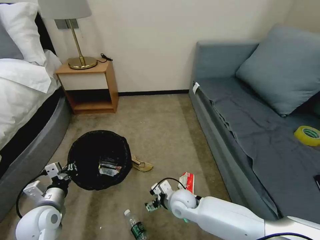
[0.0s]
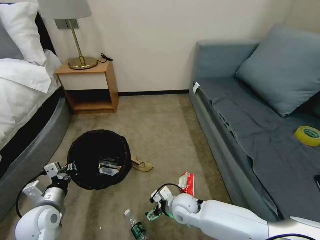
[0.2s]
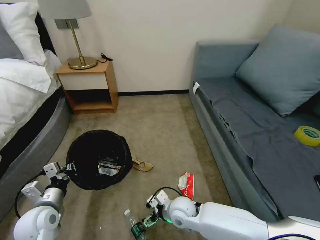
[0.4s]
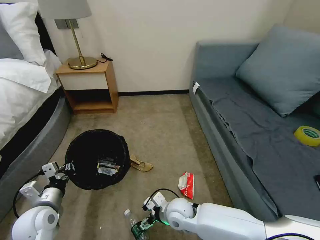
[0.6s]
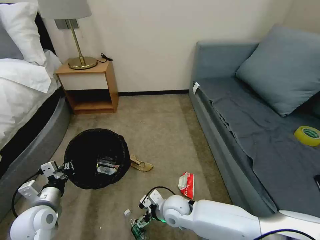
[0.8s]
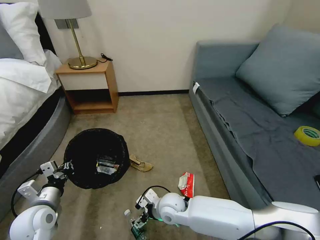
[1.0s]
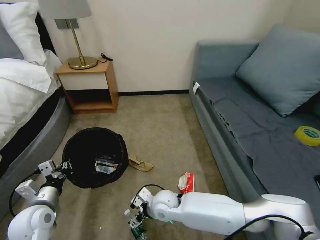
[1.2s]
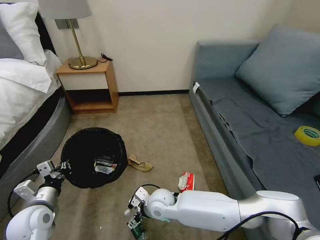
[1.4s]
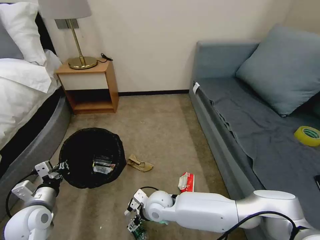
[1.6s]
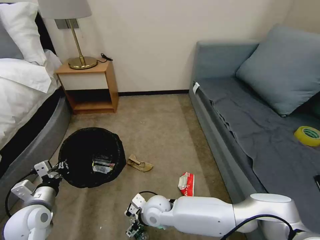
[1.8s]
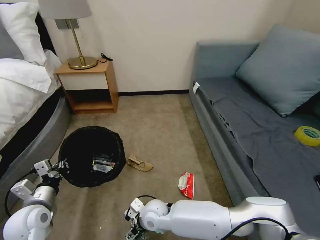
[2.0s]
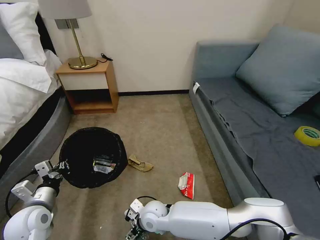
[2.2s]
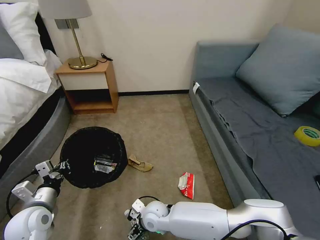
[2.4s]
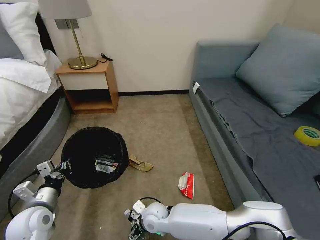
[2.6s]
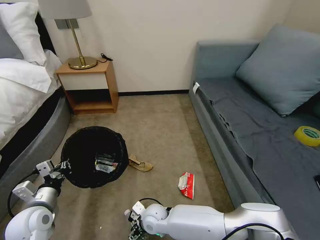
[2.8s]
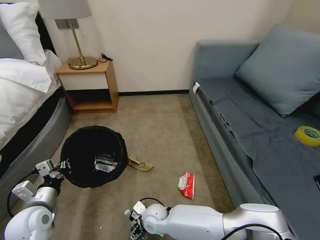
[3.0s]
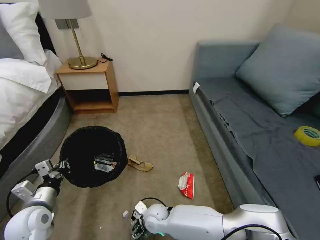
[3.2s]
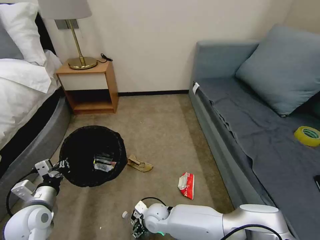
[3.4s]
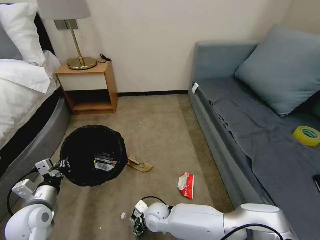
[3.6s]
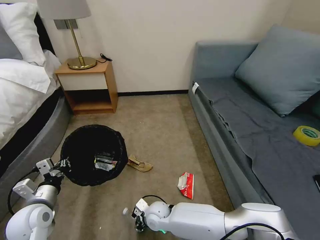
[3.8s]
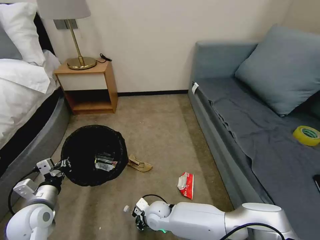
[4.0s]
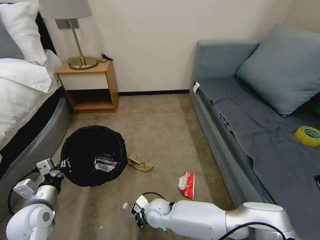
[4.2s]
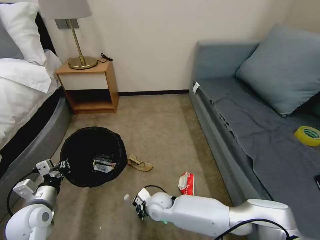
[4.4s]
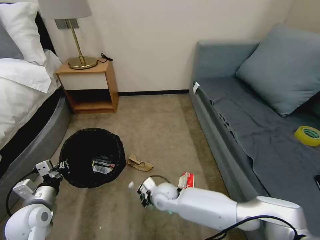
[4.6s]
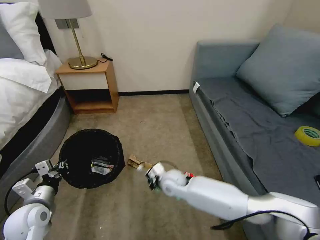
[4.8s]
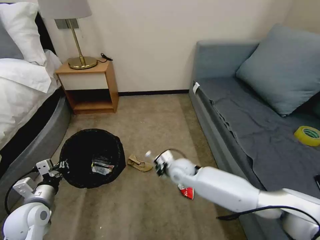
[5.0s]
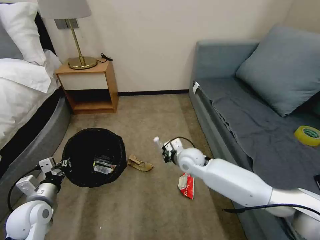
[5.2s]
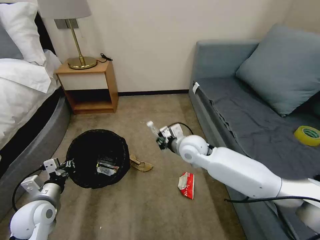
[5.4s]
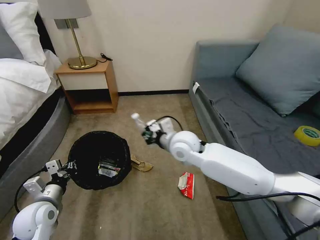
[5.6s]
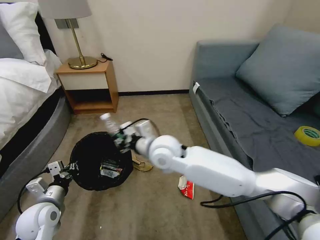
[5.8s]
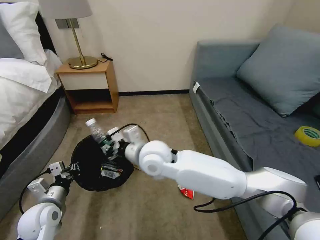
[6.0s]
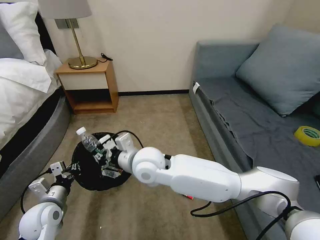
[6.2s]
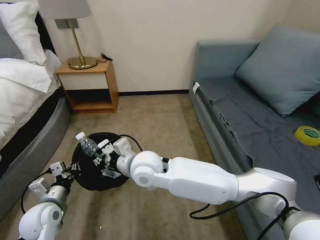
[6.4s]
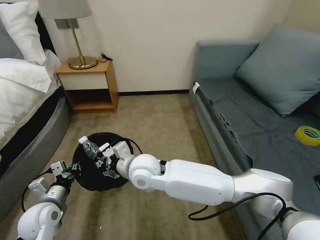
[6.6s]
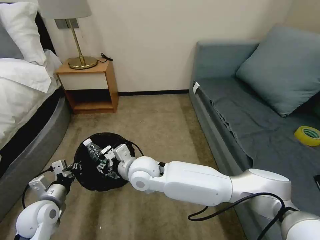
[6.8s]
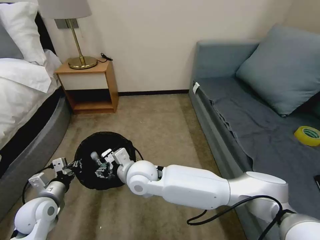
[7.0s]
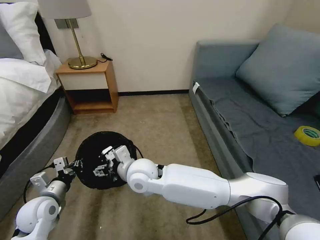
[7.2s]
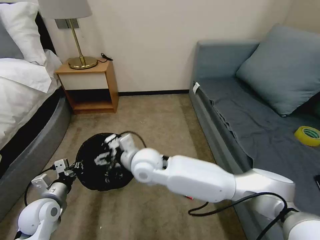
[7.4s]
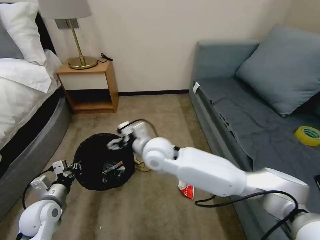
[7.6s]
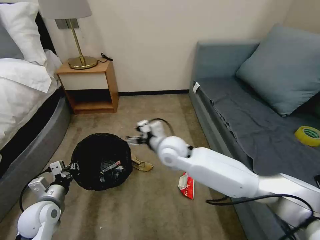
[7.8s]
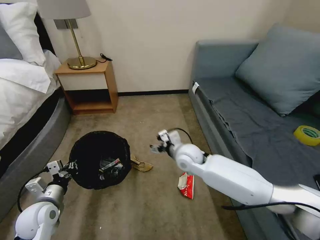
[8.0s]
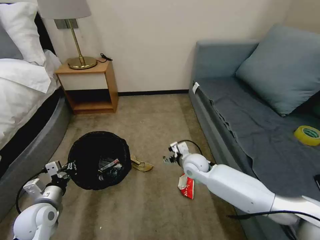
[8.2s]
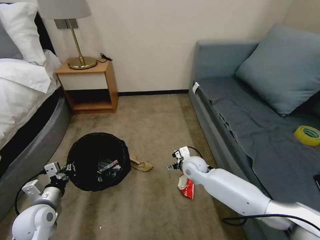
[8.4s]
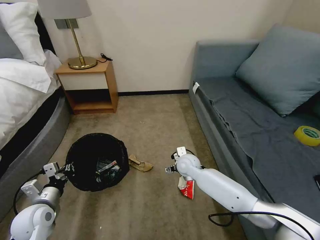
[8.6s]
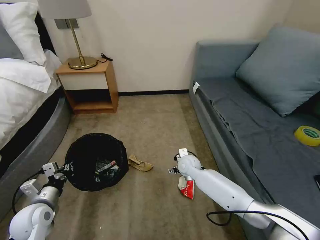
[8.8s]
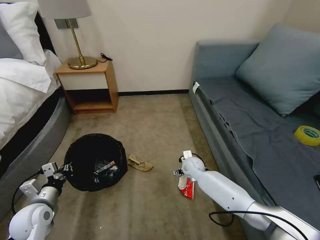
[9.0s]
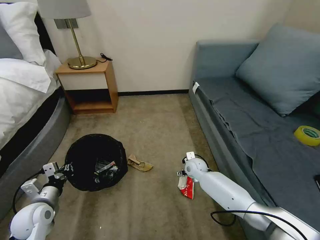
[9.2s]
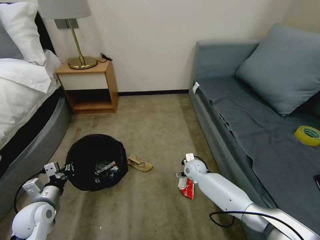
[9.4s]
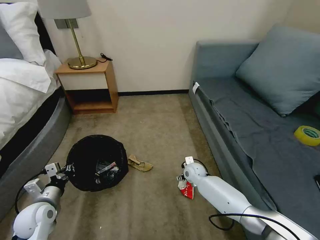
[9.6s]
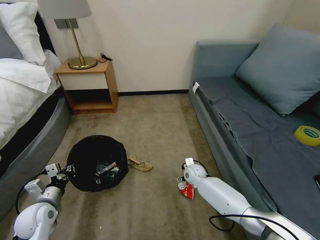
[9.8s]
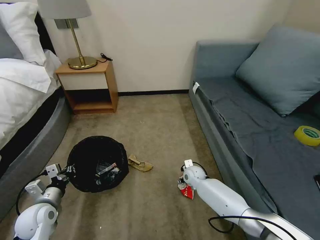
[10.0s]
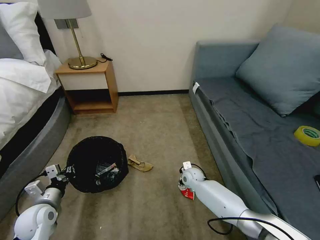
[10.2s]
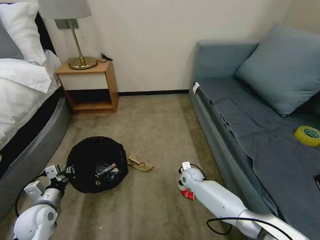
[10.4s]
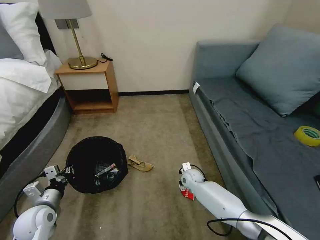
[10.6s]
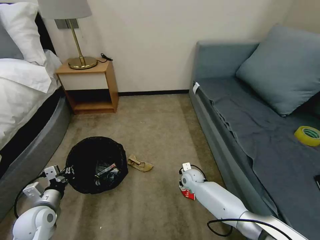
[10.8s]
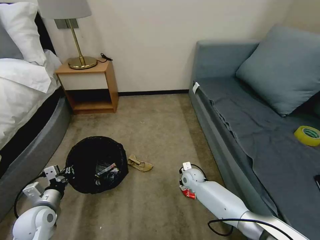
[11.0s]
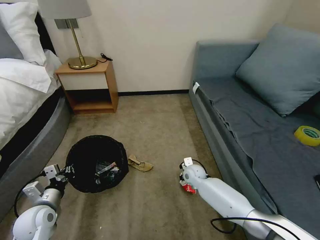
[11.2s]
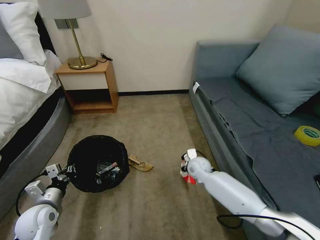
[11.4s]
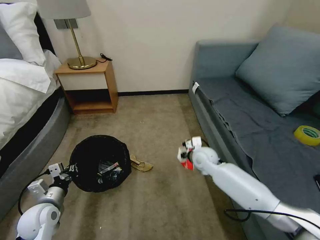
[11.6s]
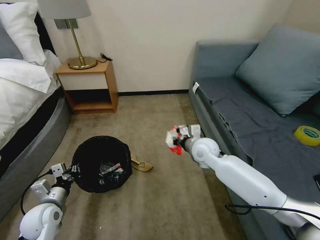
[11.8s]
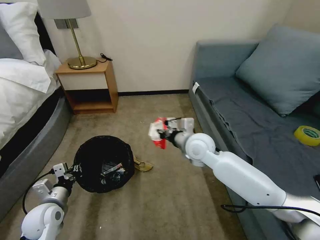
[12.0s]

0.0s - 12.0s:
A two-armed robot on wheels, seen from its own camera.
Task of the whole recording: Pick up the trash bin, then pick up the garbage on the floor and place it into the trash bin.
0.0s - 1.6s: The right gripper moves to the left, roughly 10 cm.
1.6s - 3.0s: The right gripper is displaced downward by approximately 10 cm.
3.0s - 4.4s: The right gripper closes.
4.4s - 6.0s: The right gripper shifts approximately 25 cm upward.
6.0s - 7.6s: The right gripper opens its fingers.
7.6s - 9.0s: The right gripper is displaced downward, to the right and forward by approximately 30 cm.
9.0s - 10.4s: The right gripper moves downward, approximately 5 cm, and closes up.
10.4s - 12.0s: The right gripper travels upward by roughly 25 cm, and closes.

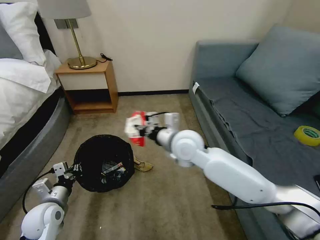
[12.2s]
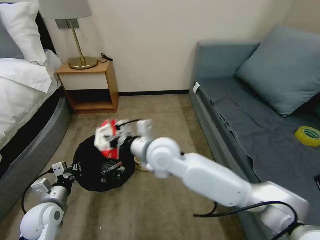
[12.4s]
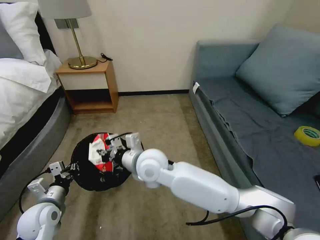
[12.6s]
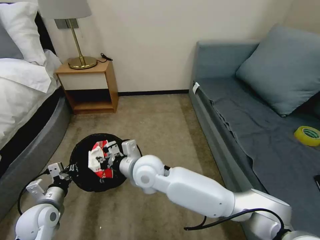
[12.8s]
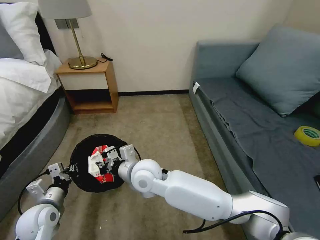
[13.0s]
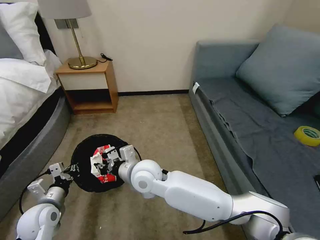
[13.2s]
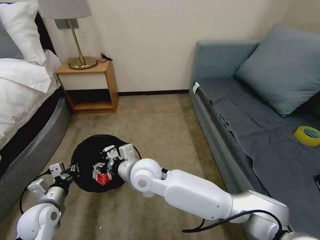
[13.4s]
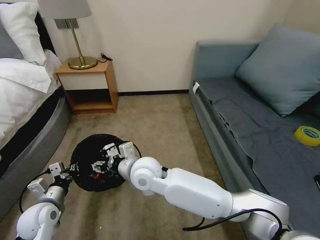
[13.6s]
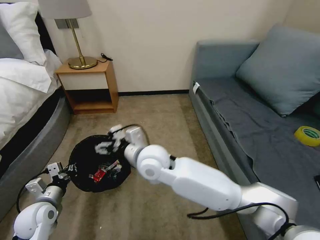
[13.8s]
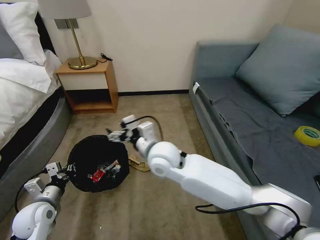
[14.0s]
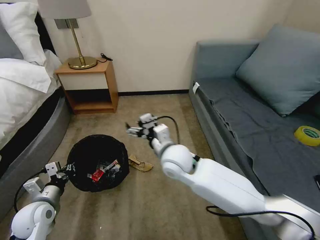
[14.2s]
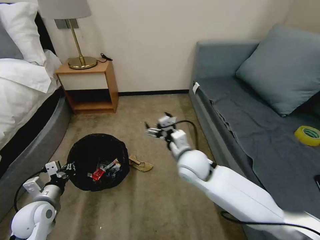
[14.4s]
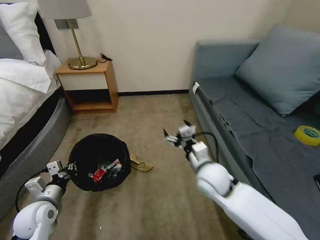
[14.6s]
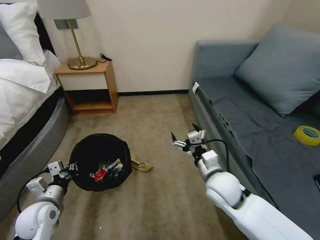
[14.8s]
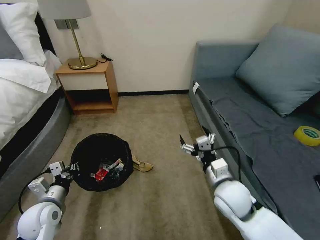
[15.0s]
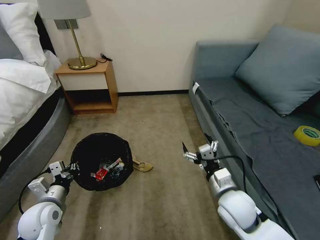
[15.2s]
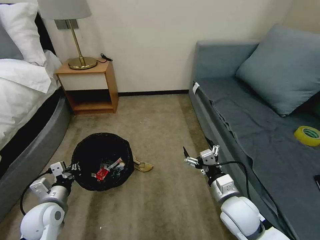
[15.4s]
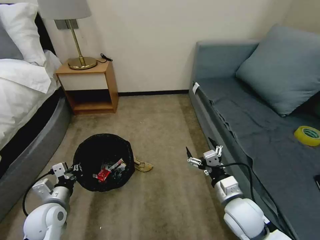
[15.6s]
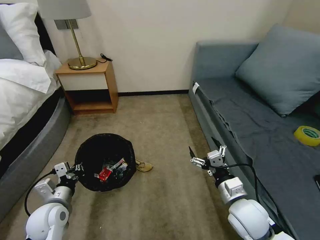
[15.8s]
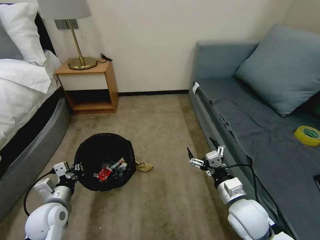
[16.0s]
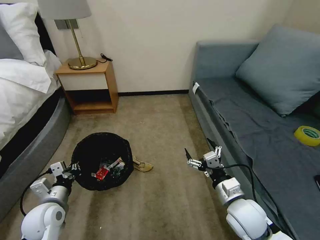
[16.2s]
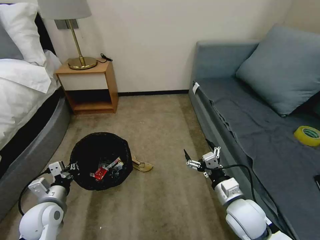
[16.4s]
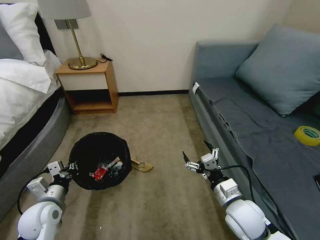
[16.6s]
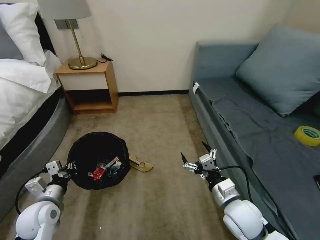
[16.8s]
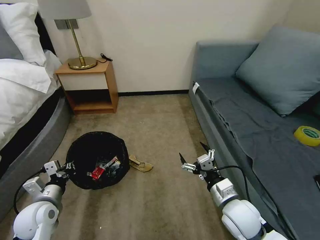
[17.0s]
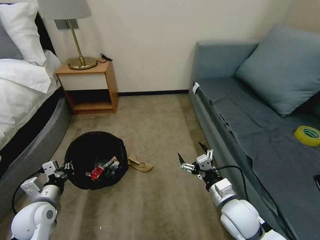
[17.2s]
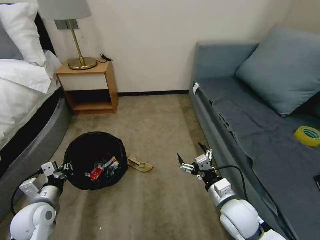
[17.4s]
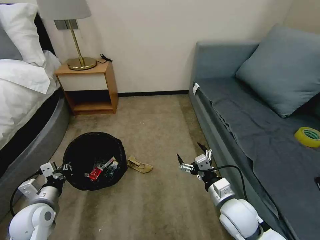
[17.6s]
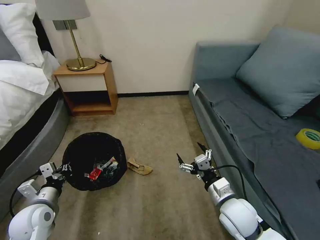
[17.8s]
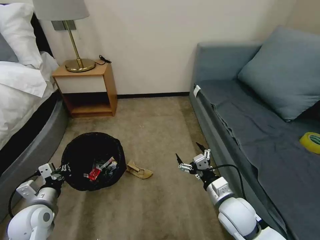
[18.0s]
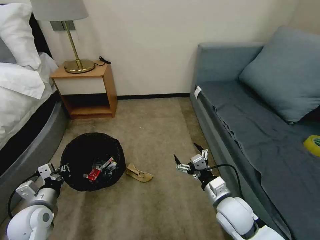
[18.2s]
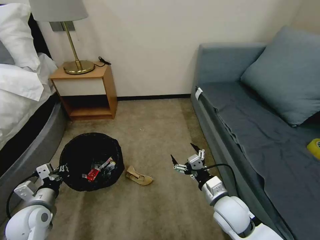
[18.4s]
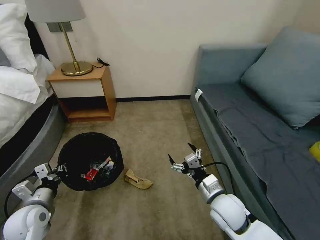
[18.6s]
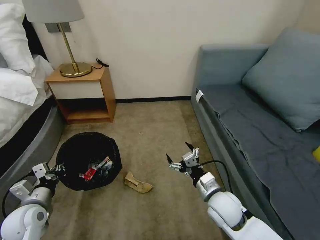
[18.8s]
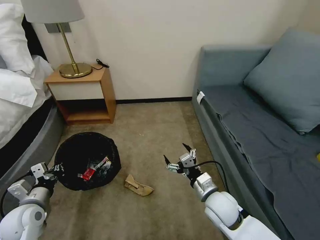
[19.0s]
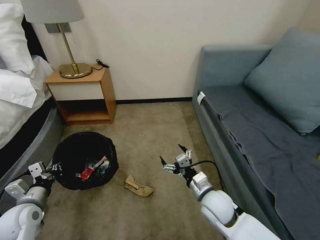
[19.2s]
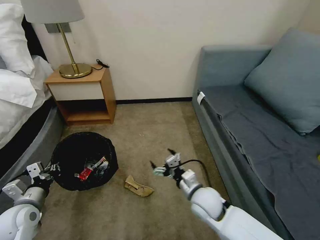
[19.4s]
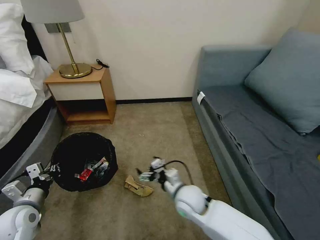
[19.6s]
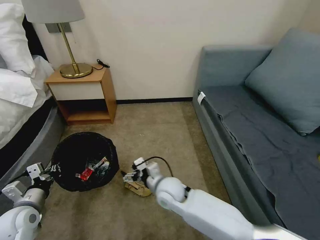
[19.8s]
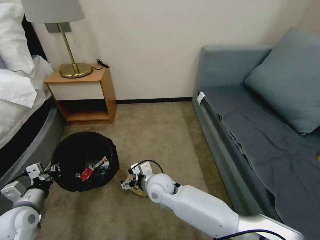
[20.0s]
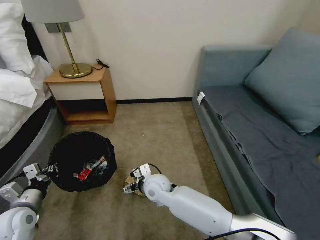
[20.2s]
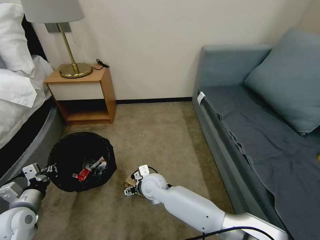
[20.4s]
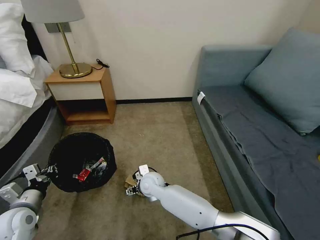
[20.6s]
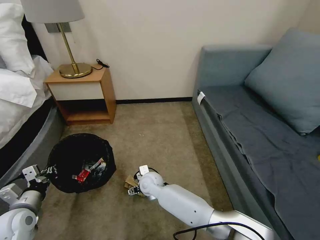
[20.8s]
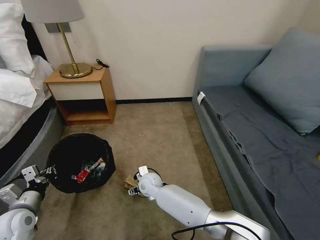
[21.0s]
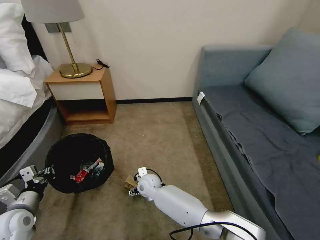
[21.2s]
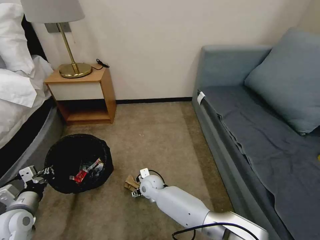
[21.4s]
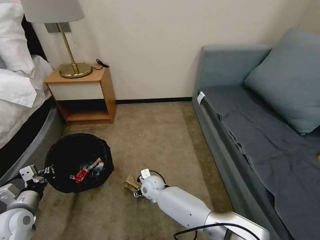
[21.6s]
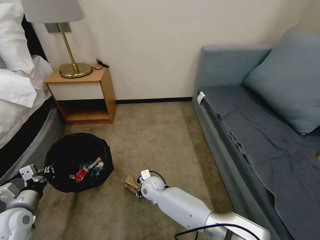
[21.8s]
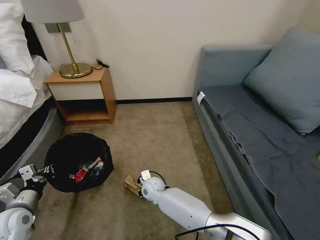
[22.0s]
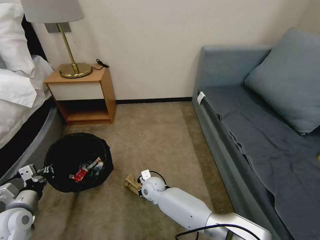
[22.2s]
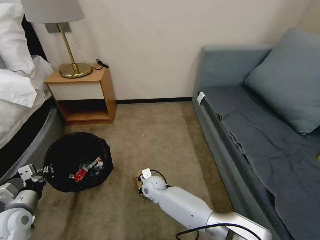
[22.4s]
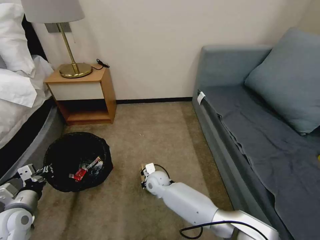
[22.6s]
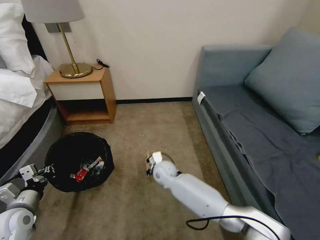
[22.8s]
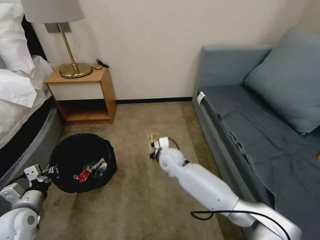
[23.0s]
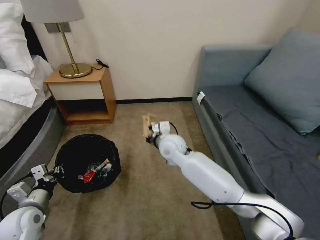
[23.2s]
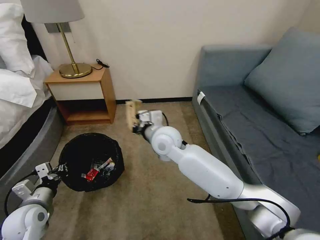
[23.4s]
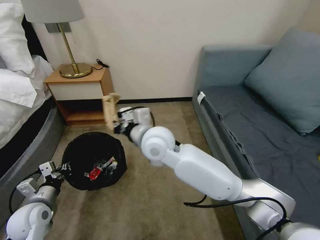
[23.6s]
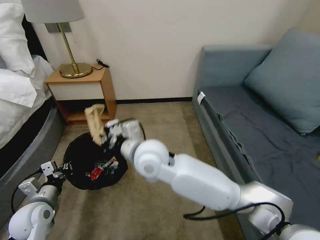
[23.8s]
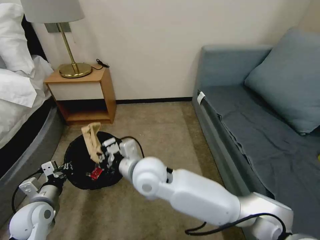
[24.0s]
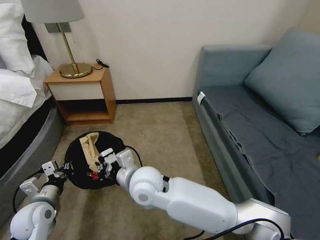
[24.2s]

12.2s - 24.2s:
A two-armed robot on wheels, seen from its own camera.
Task of the whole recording: Pick up the trash bin, then pick up the garbage on the floor and place it into the trash bin.
12.2s - 13.8s: The right gripper moves to the left, some 10 cm, and opens up.
13.8s - 15.2s: The right gripper travels to the right, downward and backward by about 30 cm.
15.2s - 16.6s: The grippers make only small movements.
18.2s - 19.8s: The right gripper travels to the left and forward by approximately 20 cm.
19.8s - 21.2s: The right gripper travels downward, to the left and forward by about 15 cm.
21.2s - 22.6s: The right gripper closes.
22.6s - 24.2s: The right gripper moves upward and backward, approximately 25 cm; the left gripper is displaced to the right by about 5 cm.
